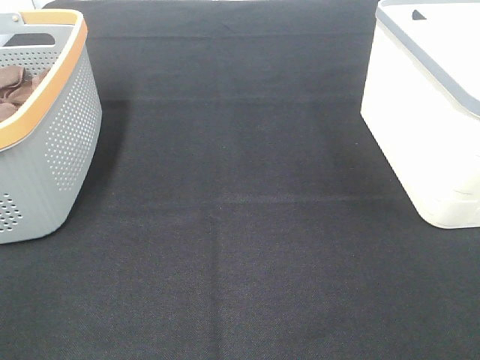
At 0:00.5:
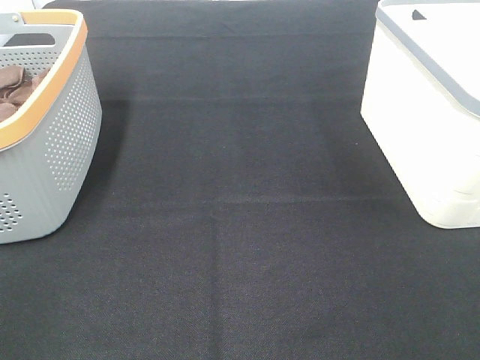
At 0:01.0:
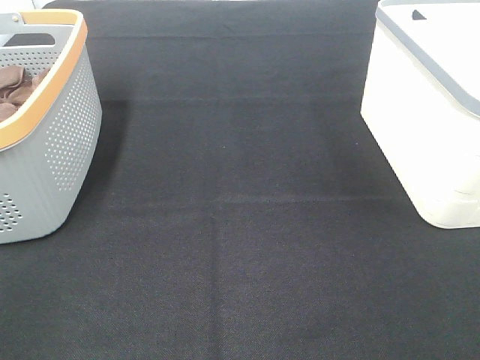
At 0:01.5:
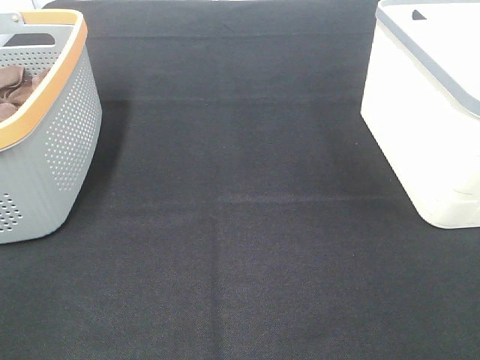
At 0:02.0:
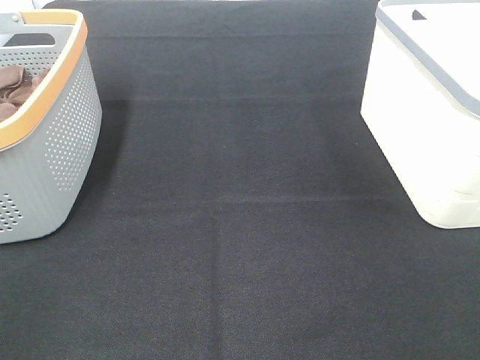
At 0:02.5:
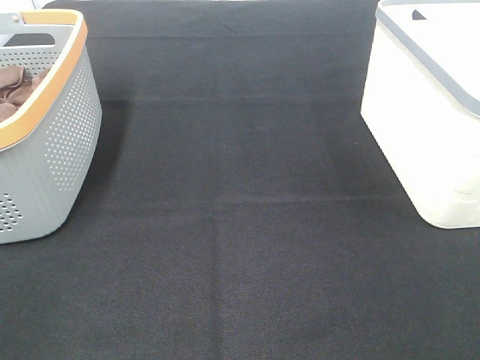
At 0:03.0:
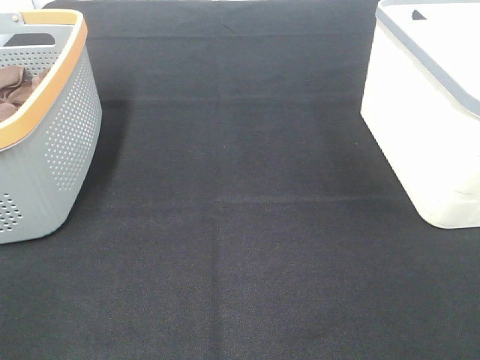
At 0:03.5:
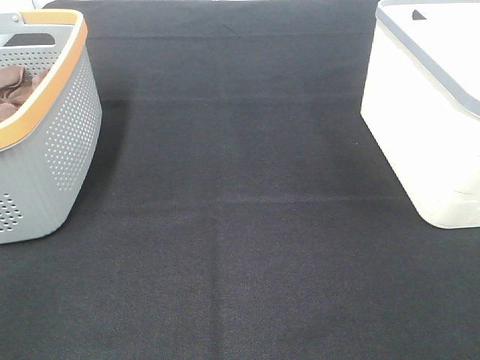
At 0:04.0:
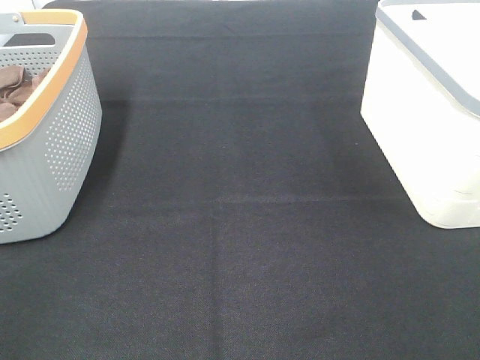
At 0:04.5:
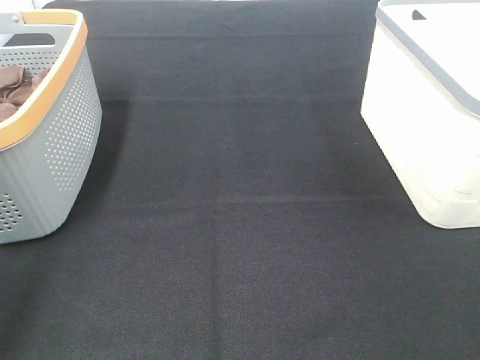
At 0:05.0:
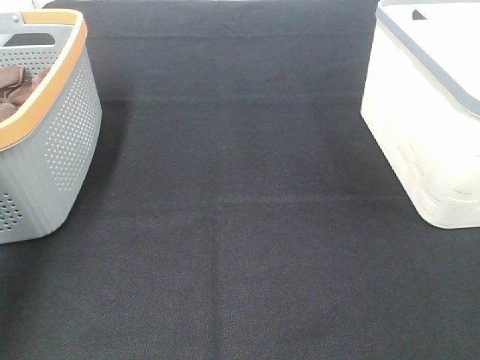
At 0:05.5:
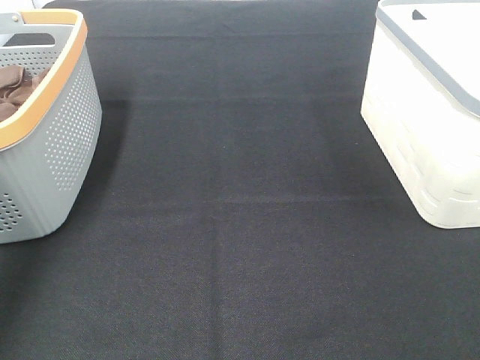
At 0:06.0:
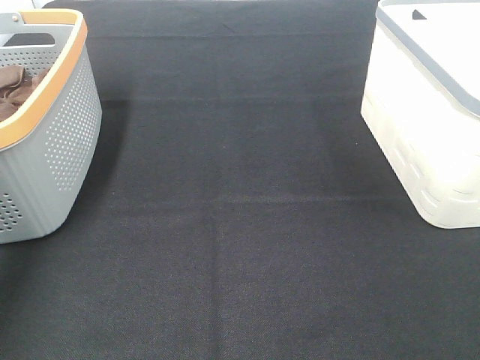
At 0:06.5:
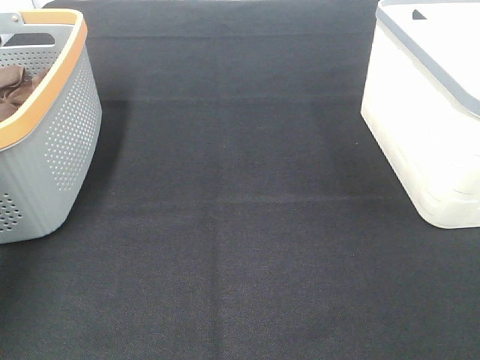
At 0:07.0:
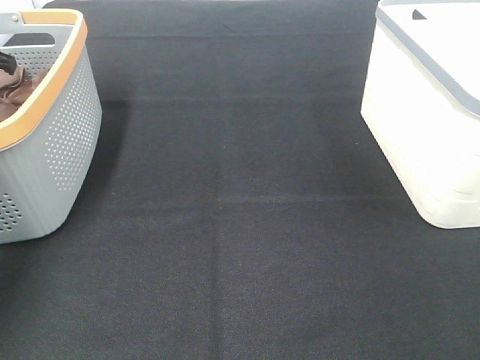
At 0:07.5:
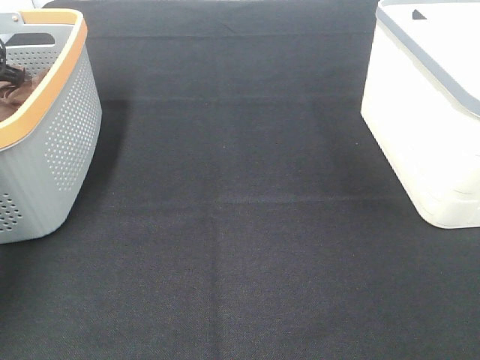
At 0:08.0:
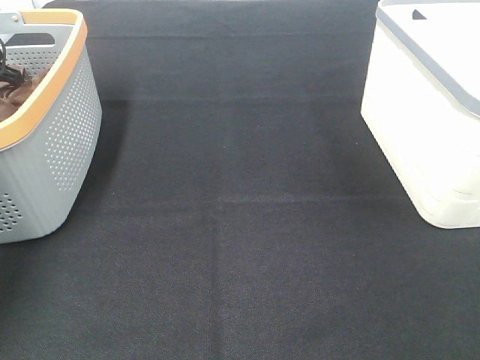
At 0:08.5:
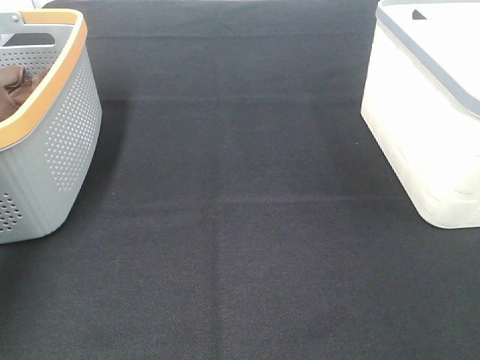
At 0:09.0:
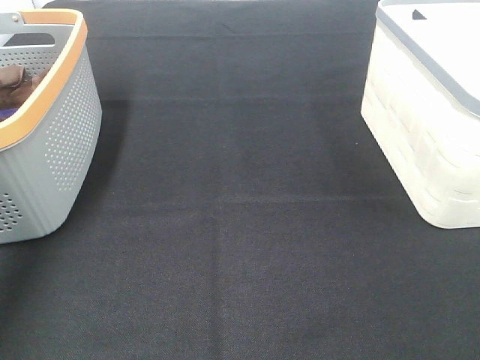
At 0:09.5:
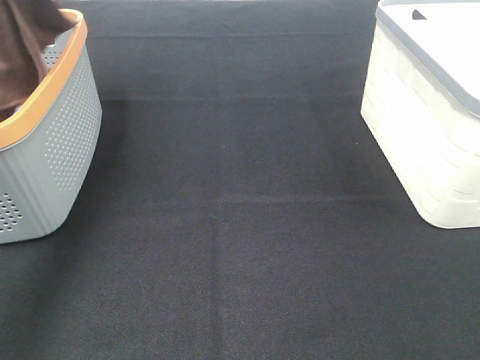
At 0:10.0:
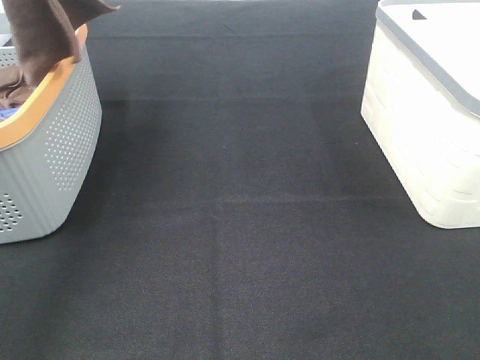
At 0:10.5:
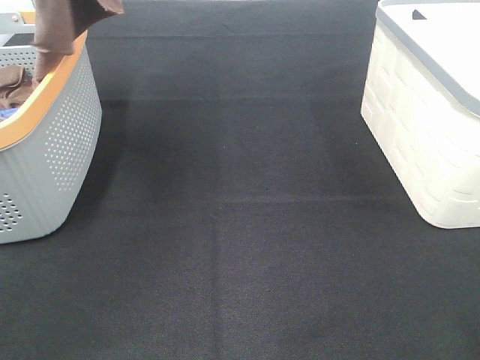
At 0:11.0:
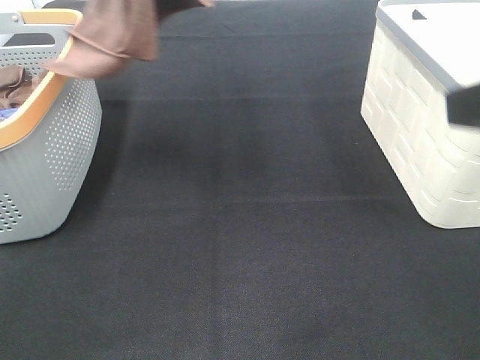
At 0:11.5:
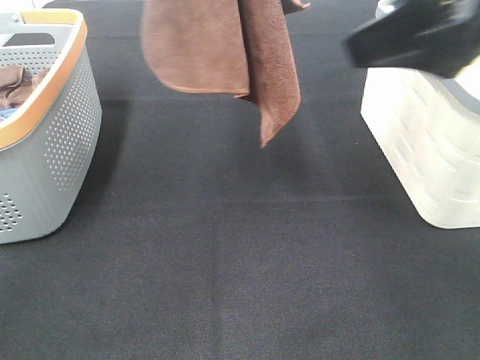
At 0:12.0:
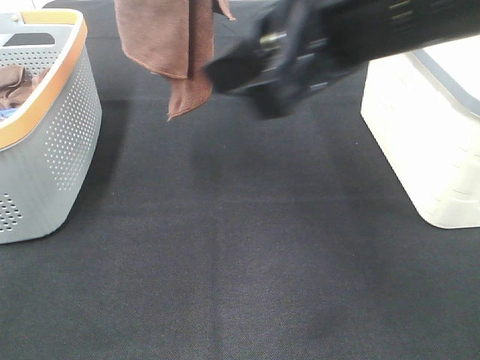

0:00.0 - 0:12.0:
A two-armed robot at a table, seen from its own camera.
Task of the whole recording: Remove the towel and place it.
0:00.0 - 0:02.0: Both grippers stay about where they are.
0:04.0 - 0:06.0: The left gripper is displaced forward by roughly 40 cm.
0:08.0 - 0:10.0: The left gripper travels upward, to the right and backward by roughly 35 cm.
0:10.0 - 0:12.0: The left gripper shifts some 15 cm to the right; the right gripper heads forward and to the left, covering some 25 cm.

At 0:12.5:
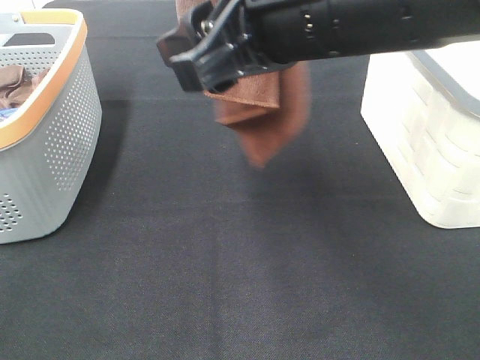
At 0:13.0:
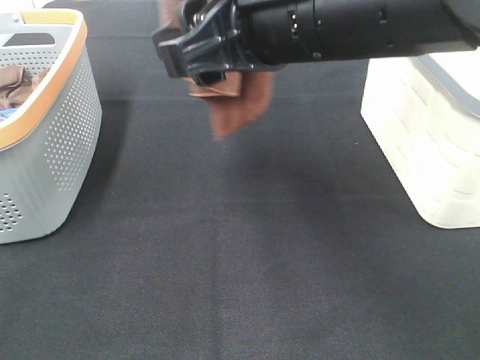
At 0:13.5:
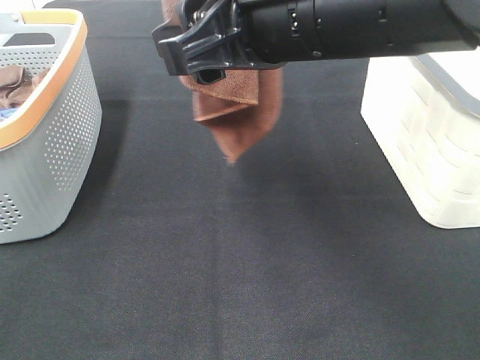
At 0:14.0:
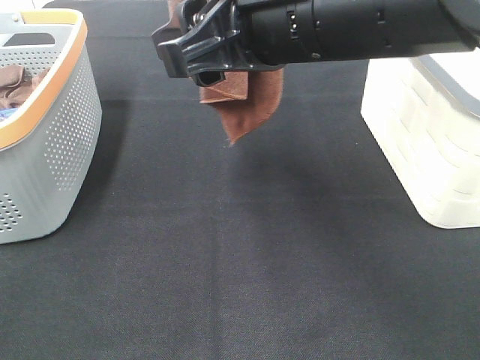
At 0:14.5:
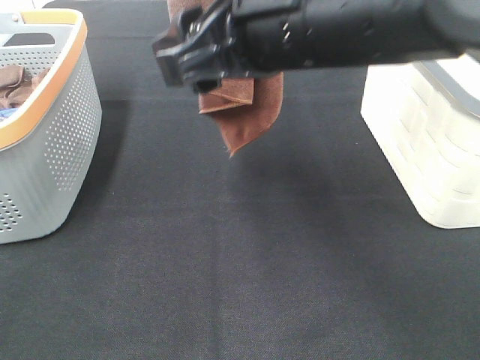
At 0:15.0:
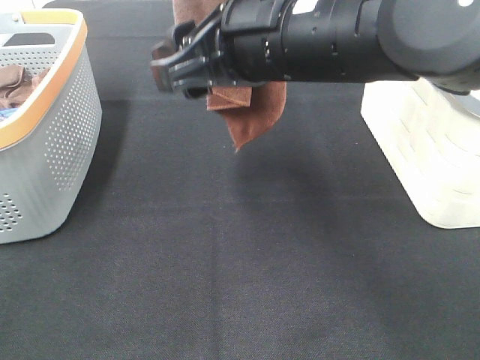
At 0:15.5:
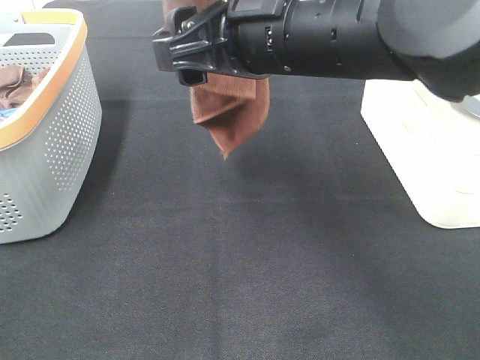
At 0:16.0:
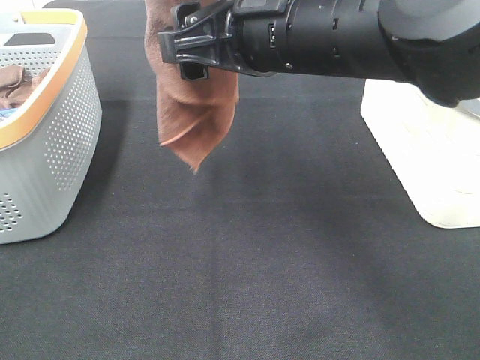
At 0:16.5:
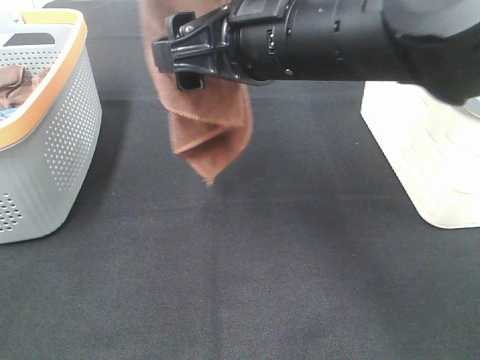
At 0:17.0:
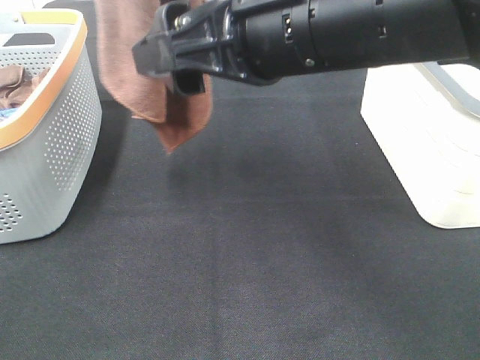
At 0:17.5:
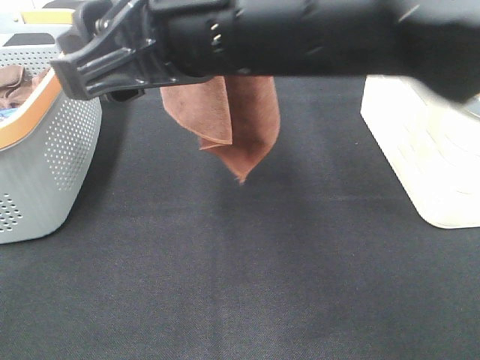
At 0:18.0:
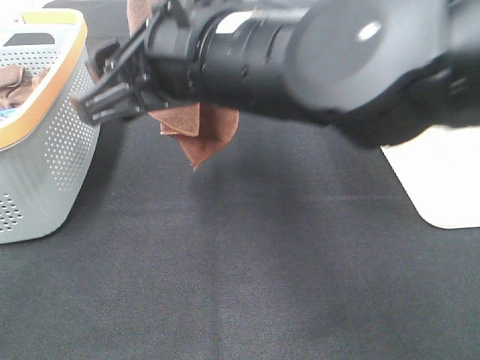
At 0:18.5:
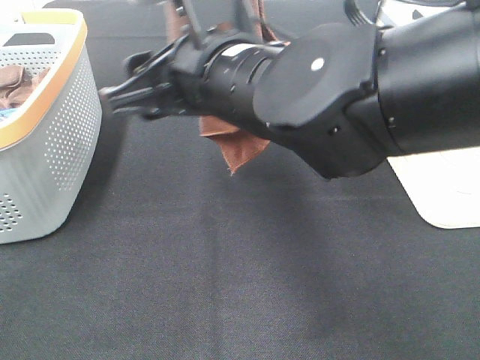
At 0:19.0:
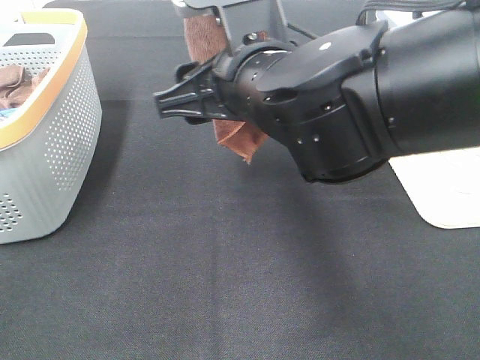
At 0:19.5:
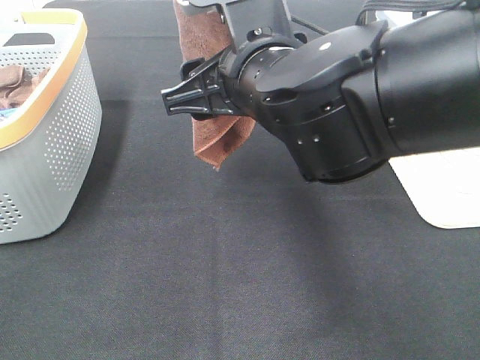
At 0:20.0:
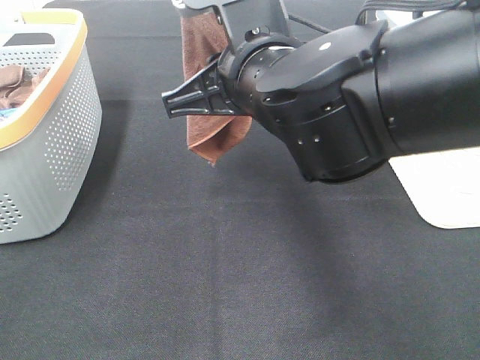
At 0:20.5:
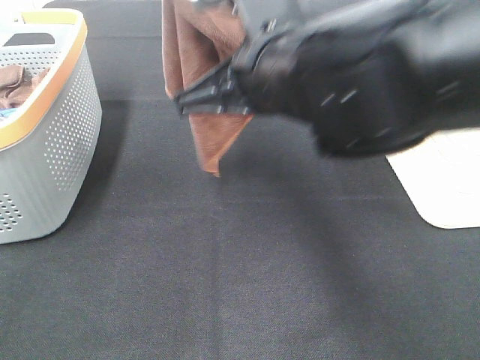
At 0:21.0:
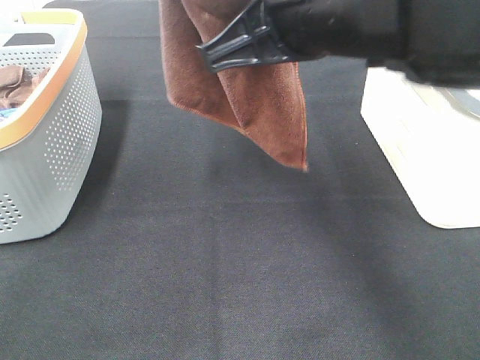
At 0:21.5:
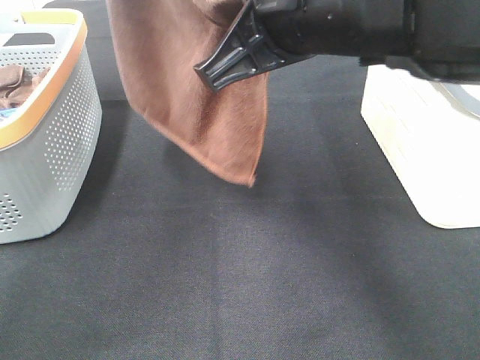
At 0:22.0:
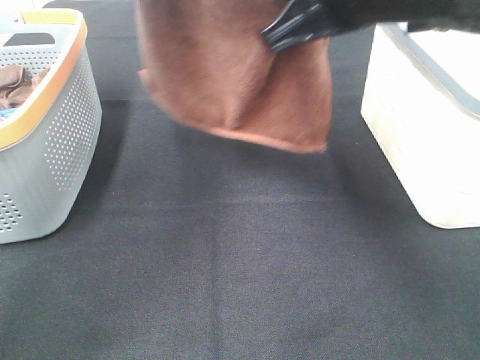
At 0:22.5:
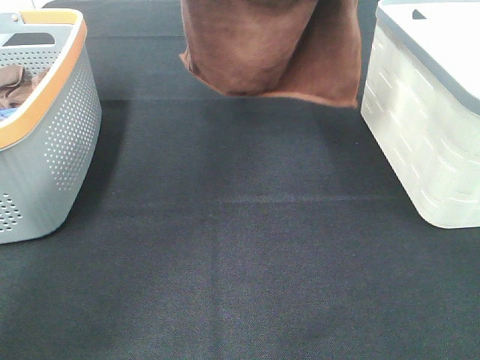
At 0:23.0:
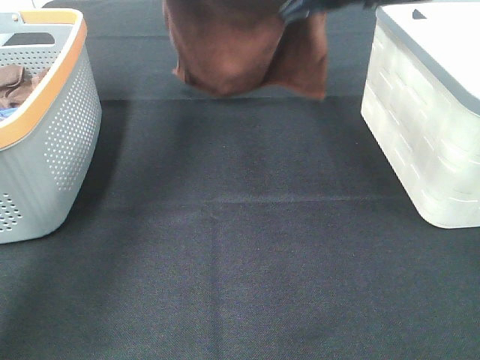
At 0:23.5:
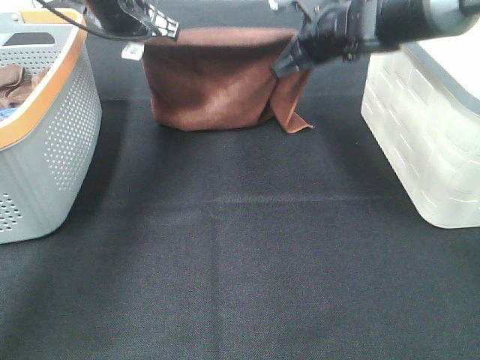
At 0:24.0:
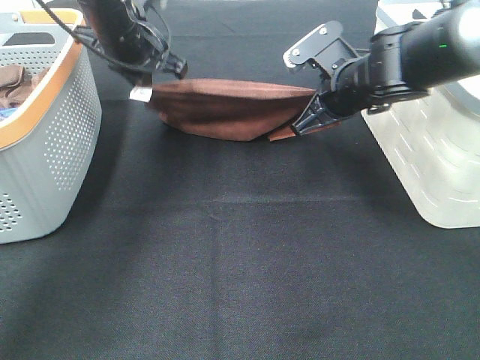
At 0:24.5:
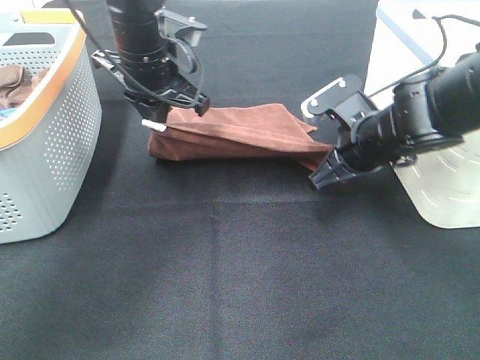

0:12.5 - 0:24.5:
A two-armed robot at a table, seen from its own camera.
Task of the whole recording: Remove the towel and place it.
Step, 0:12.5 - 0:17.0: Right hand: grab a corner of the brown towel and straighten it.
Step, 0:17.5 - 0:20.0: Right hand: spread the brown towel flat on the table.
Step, 0:17.5 - 0:20.5: Left hand: spread the brown towel flat on the table.
0:12.5 - 0:16.5: There are only small adjustments of the grippers.
0:16.5 - 0:18.5: The right gripper moves about 5 cm.
0:18.5 - 0:20.5: The right gripper closes its fingers.
0:20.5 - 0:22.5: The right gripper moves forward and to the right, about 20 cm, while the left gripper travels forward and downward by roughly 20 cm.
0:22.5 - 0:24.5: Both grippers travel together downward, some 20 cm.

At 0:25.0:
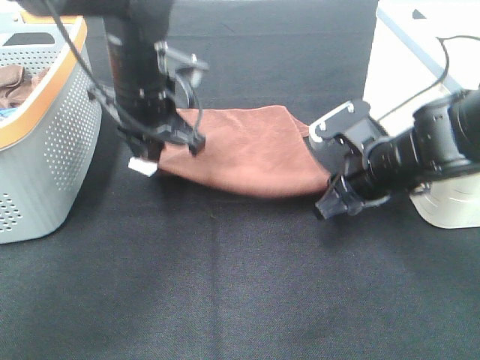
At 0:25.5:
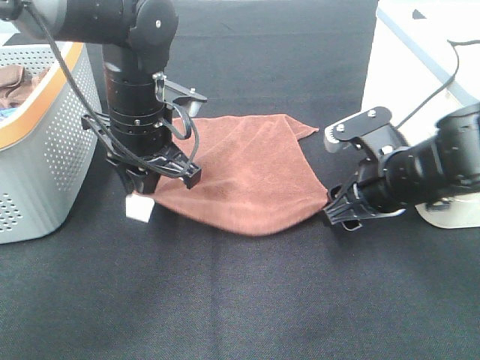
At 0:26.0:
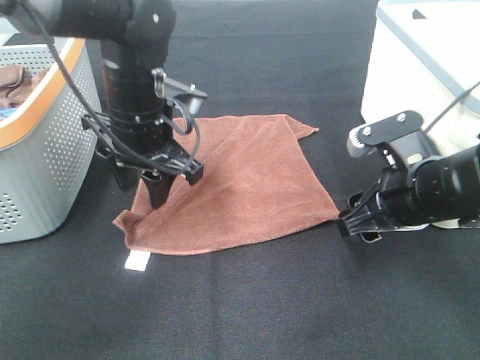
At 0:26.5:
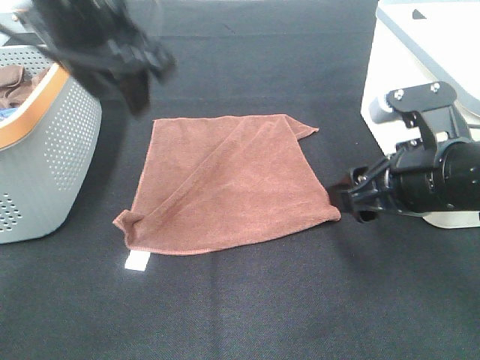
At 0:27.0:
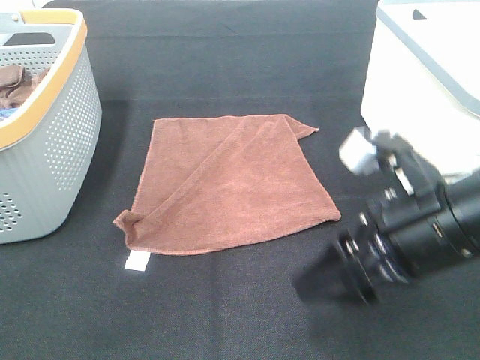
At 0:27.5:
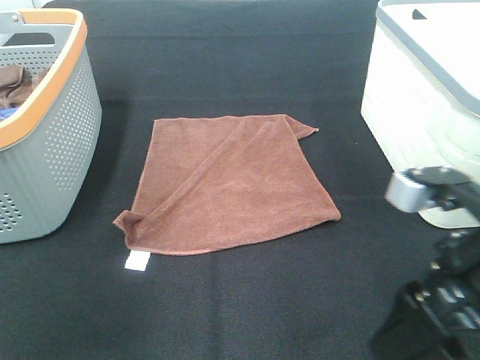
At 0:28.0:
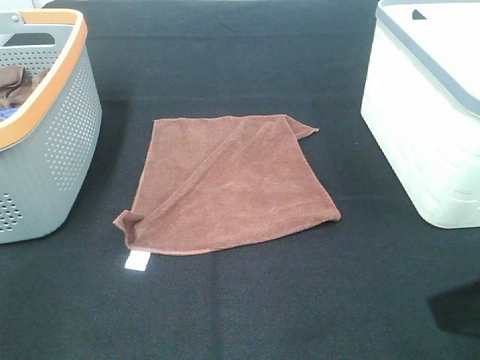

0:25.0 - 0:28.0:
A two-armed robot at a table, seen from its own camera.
Task of the whole recording: Remove the towel and place it.
0:25.0 - 0:26.5: The left gripper shifts about 15 cm upward and backward, and opens. The right gripper goes approximately 10 cm backward and upward, and opens.
0:26.5 - 0:28.0: The right gripper is displaced backward and upward by about 15 cm. Meanwhile the left gripper goes approximately 35 cm backward and to the left.
